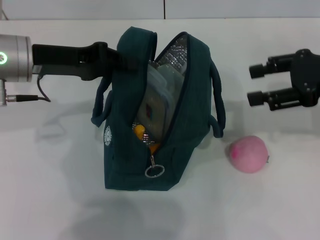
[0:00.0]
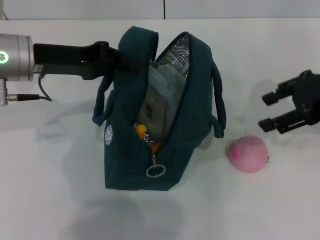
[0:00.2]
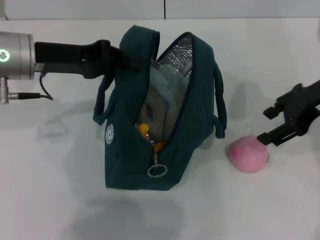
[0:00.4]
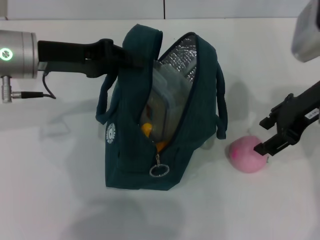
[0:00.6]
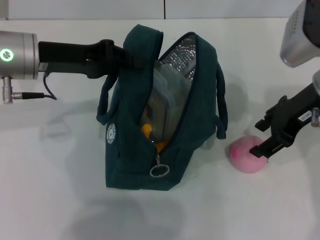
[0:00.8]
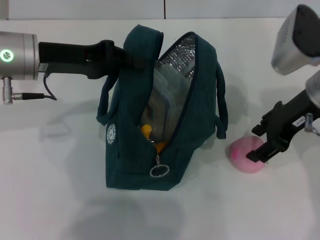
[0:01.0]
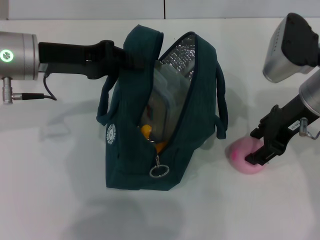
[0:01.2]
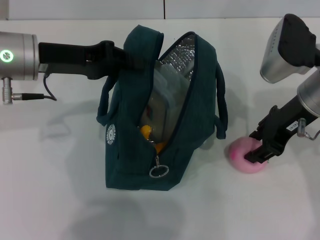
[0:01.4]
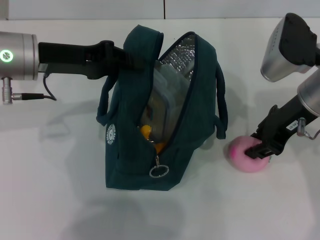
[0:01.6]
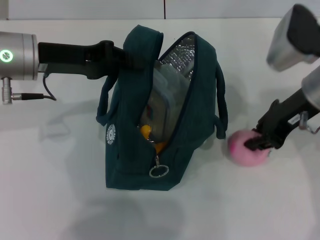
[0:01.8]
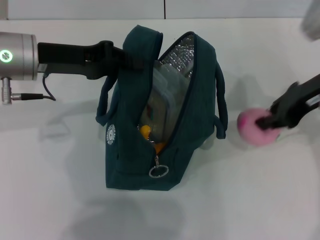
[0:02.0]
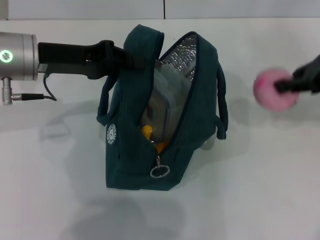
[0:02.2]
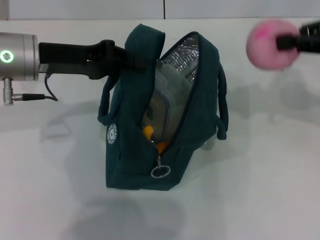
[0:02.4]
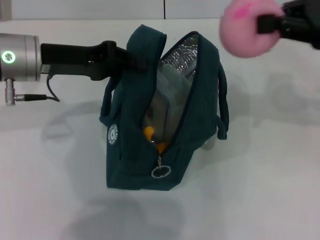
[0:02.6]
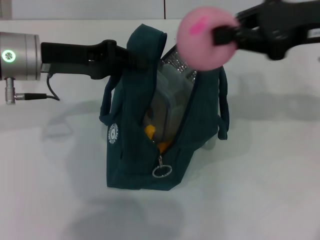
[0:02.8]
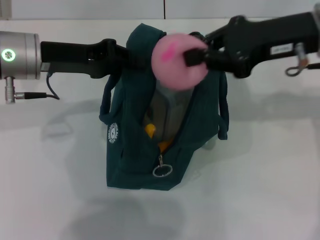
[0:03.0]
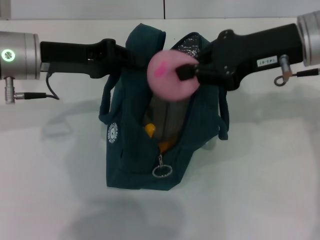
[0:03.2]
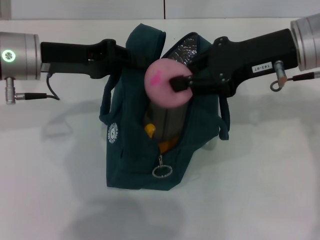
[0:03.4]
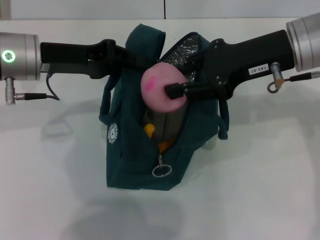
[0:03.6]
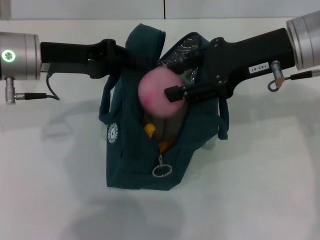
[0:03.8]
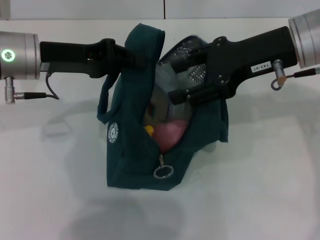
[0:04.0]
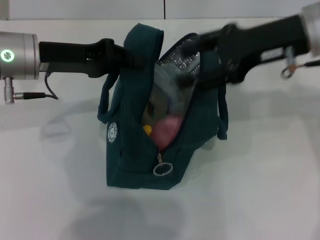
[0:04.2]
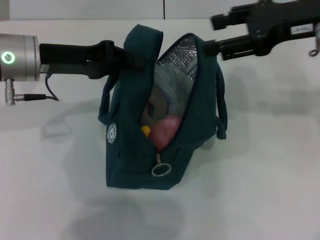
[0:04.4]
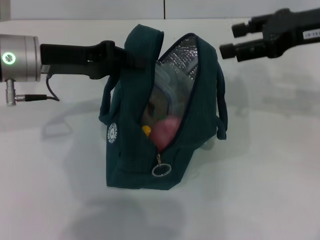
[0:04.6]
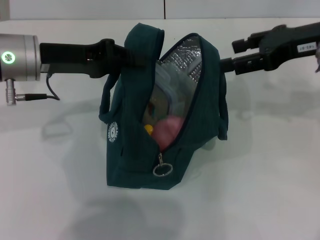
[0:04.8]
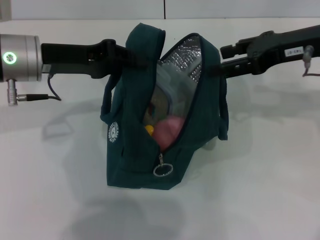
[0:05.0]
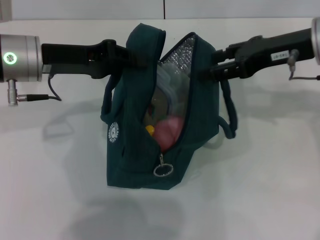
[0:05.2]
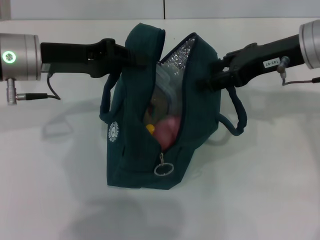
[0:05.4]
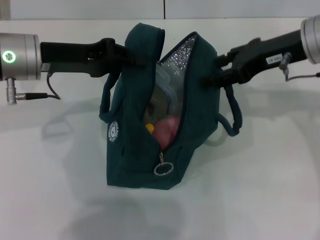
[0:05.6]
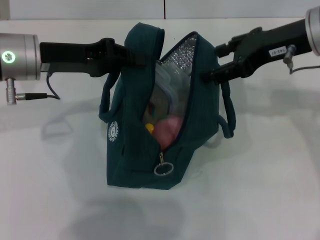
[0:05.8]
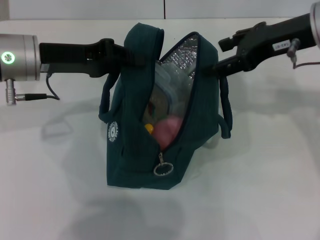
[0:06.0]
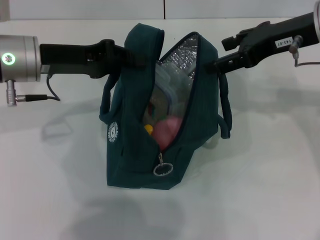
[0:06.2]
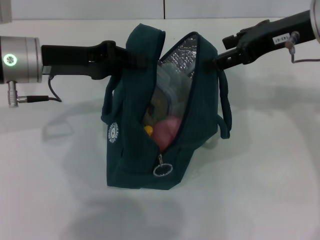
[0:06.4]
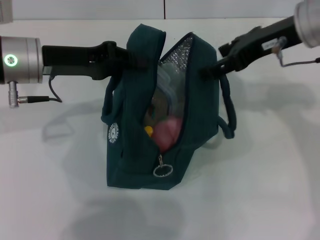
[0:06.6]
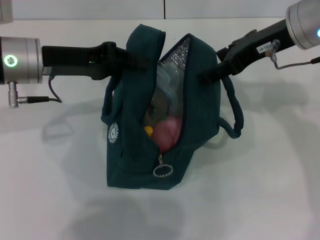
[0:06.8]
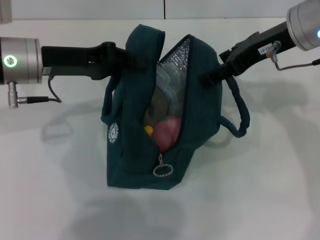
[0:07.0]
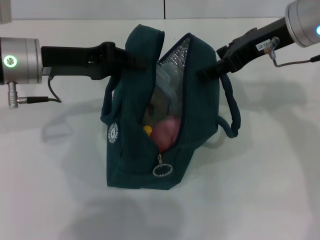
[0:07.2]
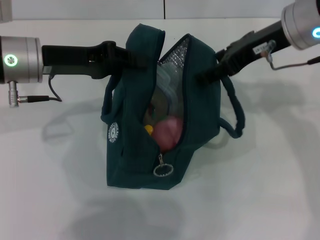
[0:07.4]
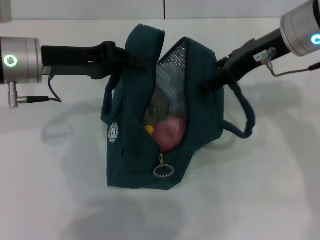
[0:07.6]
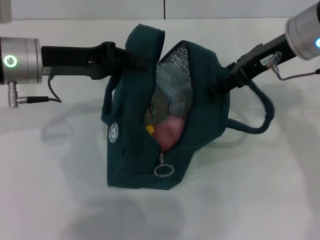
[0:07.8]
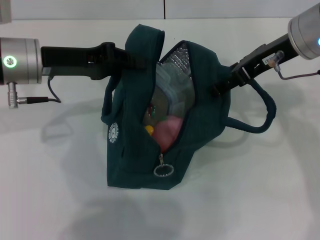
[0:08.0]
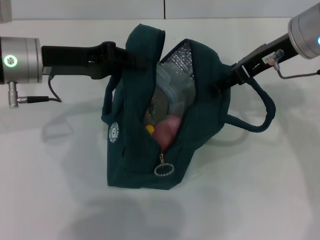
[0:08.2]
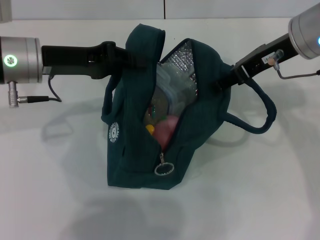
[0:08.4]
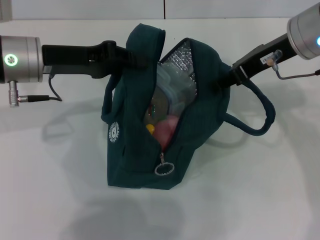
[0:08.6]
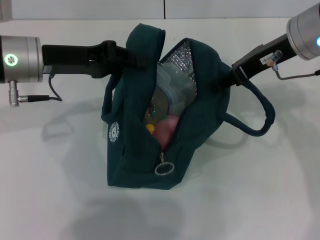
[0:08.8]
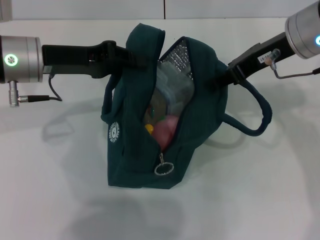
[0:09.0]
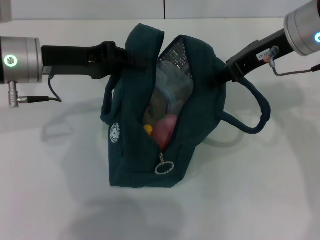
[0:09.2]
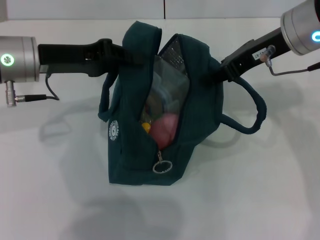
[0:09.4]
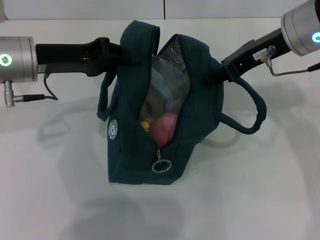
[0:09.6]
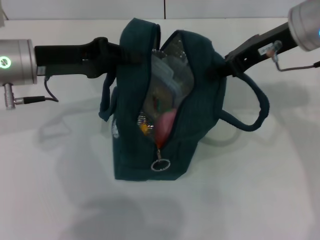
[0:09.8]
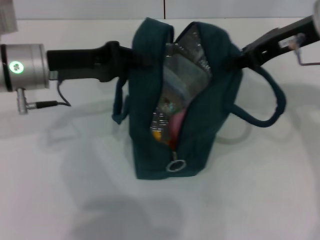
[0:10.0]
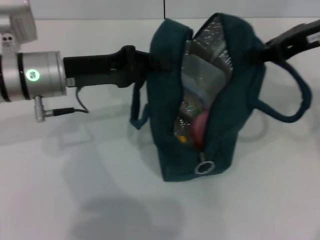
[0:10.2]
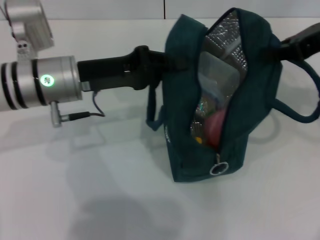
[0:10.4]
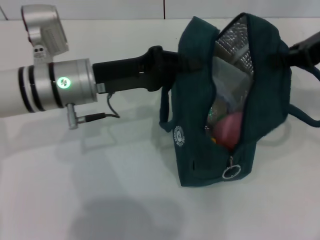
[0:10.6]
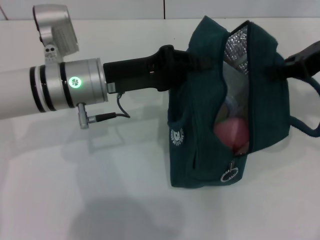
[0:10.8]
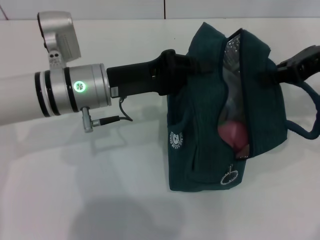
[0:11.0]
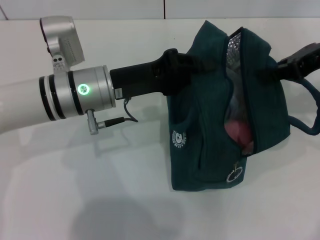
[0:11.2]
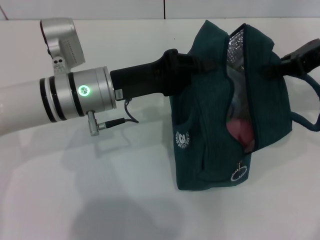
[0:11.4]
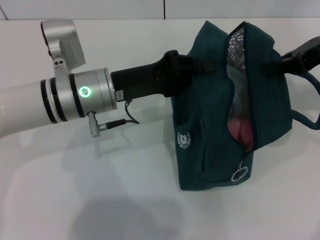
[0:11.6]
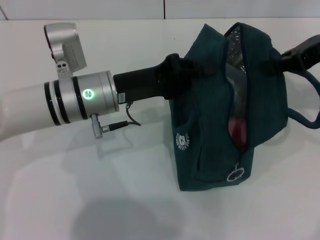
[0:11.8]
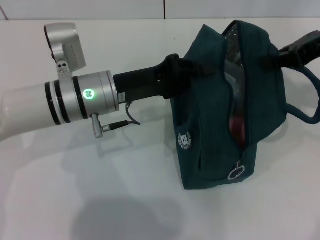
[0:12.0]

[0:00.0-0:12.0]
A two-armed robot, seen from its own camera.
Step, 0:00.0 to 0:01.4: Grab the peach with your right hand.
0:00.0 to 0:01.6: The right gripper is displaced to the left by about 10 cm.
0:01.6 to 0:03.0: The right gripper shifts approximately 5 cm upward, travels to the right and back again, some 10 cm each way, and closes its fingers.
0:03.0 to 0:04.4: The right gripper opens.
0:04.4 to 0:06.0: There are only small adjustments of the grippers.
0:06.0 to 0:07.6: The grippers move only a little.
0:07.6 to 0:09.0: The right gripper closes.
0:09.0 to 0:10.4: The right gripper travels to the right by about 10 cm; the left gripper ends up some 5 cm from where it was.
0:10.4 to 0:12.0: The left gripper moves roughly 5 cm.

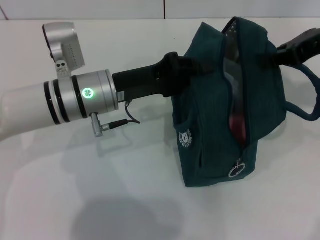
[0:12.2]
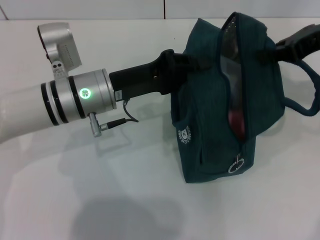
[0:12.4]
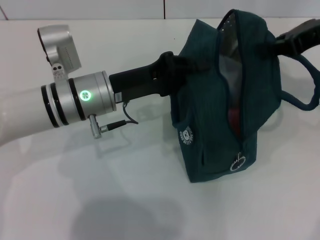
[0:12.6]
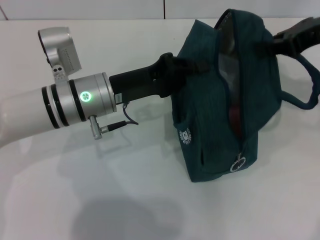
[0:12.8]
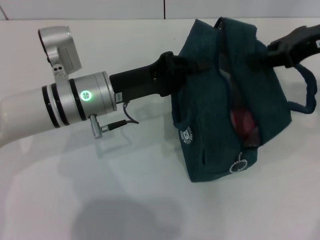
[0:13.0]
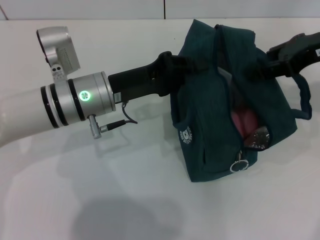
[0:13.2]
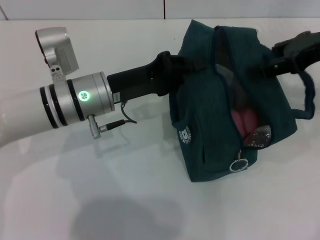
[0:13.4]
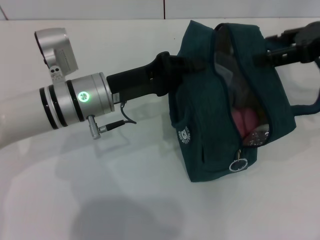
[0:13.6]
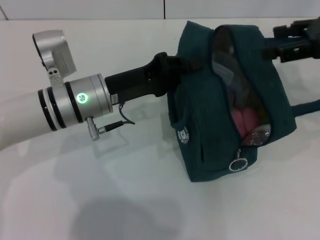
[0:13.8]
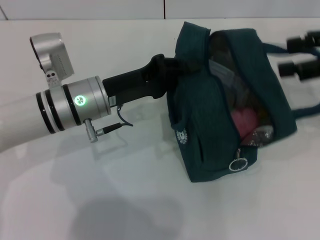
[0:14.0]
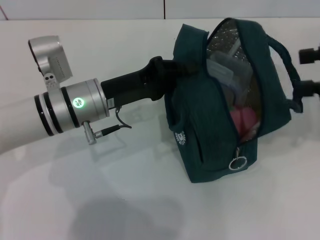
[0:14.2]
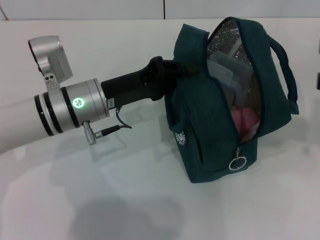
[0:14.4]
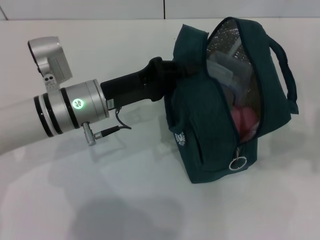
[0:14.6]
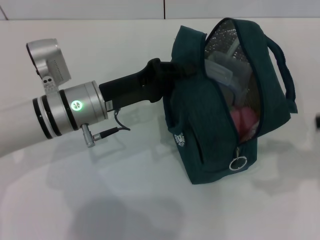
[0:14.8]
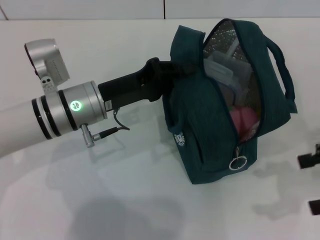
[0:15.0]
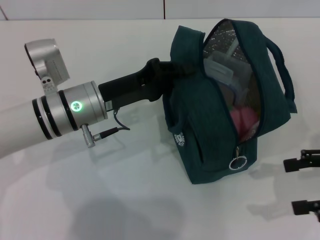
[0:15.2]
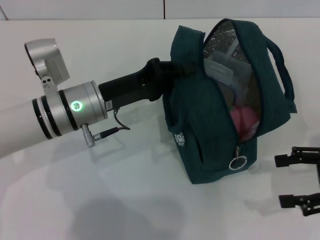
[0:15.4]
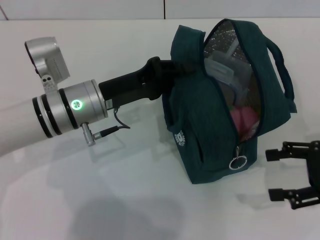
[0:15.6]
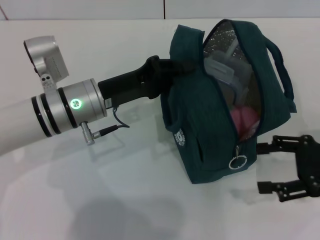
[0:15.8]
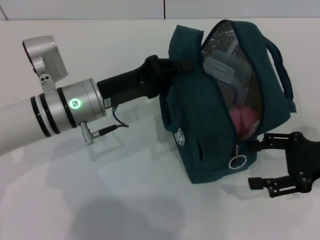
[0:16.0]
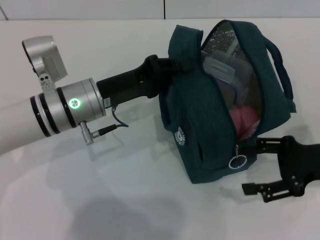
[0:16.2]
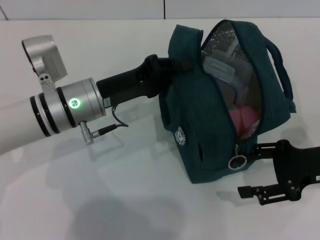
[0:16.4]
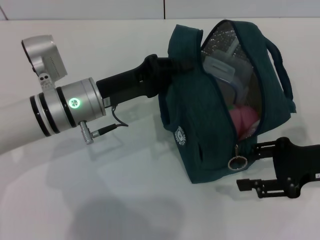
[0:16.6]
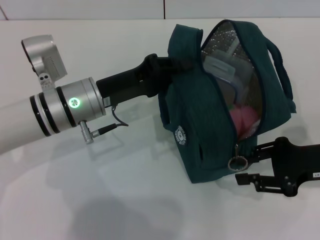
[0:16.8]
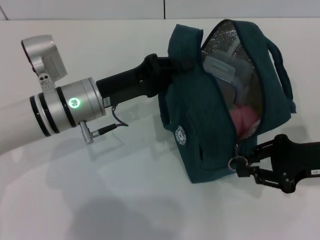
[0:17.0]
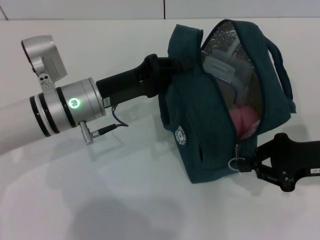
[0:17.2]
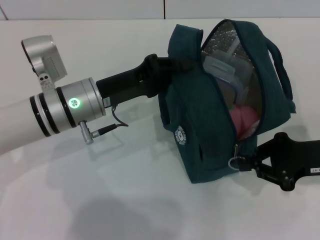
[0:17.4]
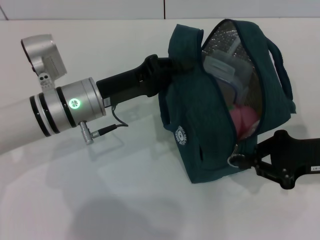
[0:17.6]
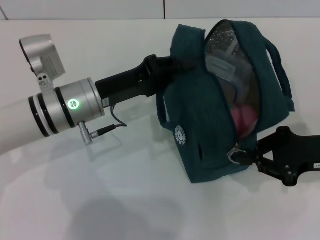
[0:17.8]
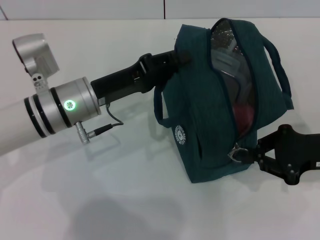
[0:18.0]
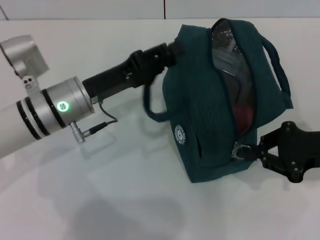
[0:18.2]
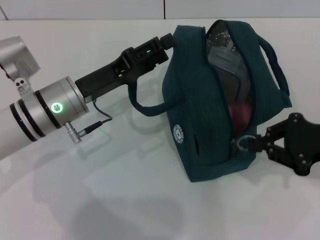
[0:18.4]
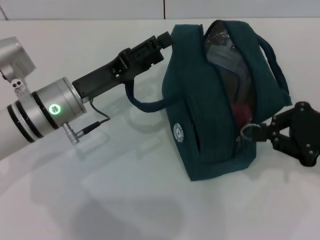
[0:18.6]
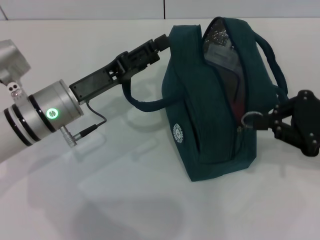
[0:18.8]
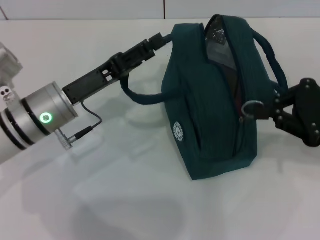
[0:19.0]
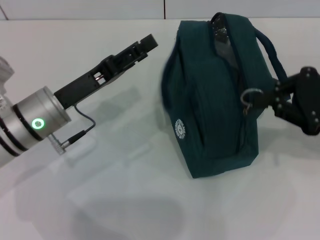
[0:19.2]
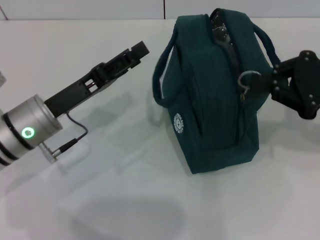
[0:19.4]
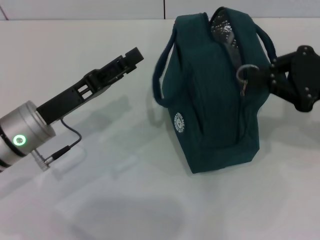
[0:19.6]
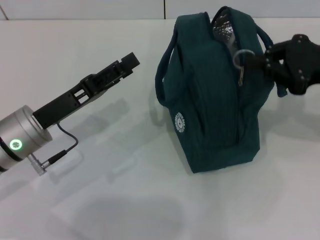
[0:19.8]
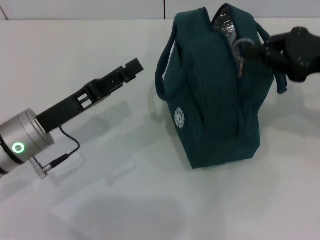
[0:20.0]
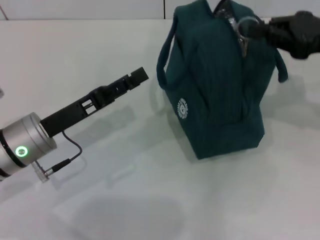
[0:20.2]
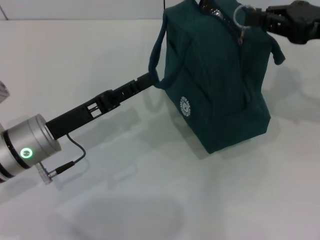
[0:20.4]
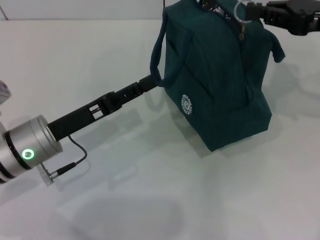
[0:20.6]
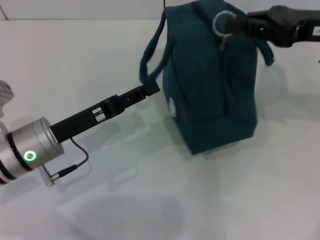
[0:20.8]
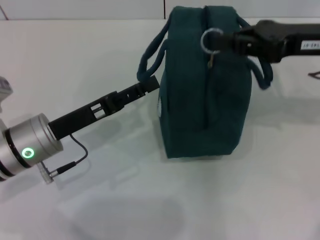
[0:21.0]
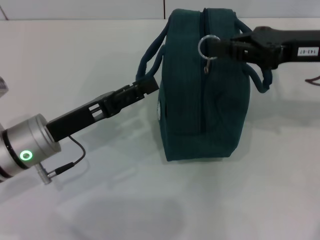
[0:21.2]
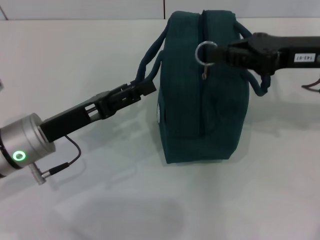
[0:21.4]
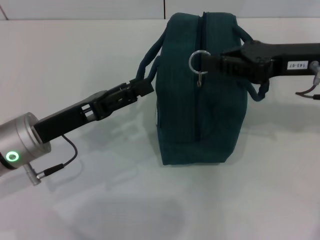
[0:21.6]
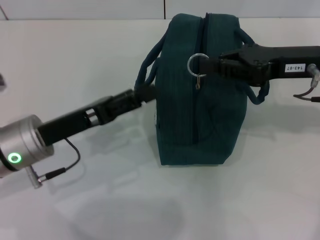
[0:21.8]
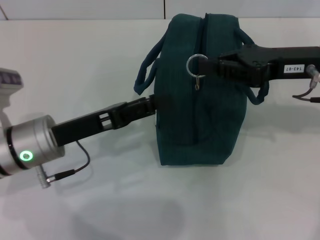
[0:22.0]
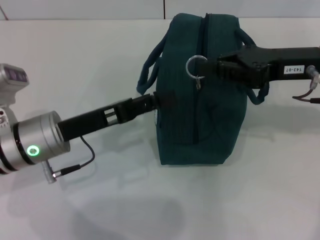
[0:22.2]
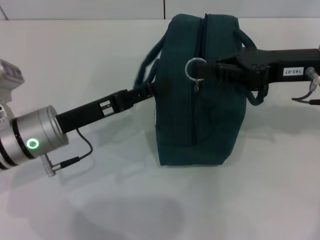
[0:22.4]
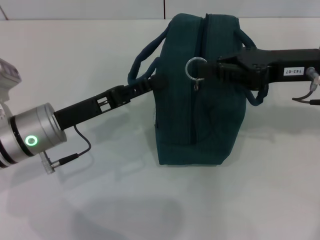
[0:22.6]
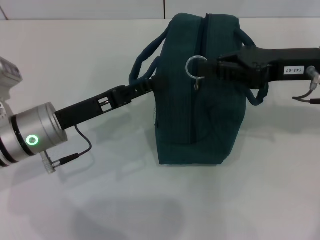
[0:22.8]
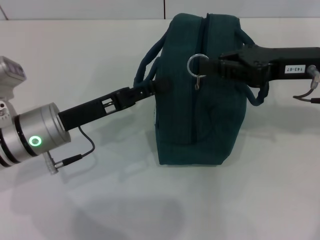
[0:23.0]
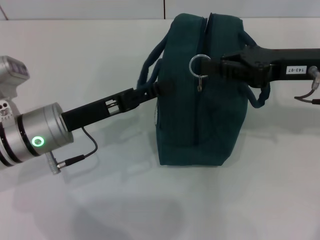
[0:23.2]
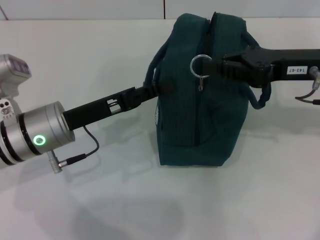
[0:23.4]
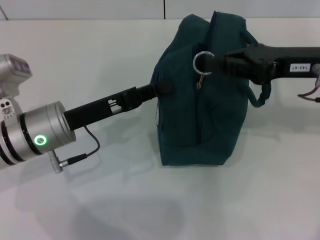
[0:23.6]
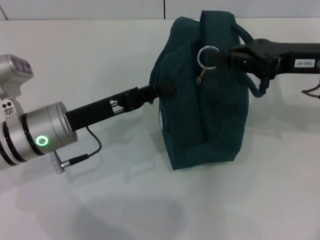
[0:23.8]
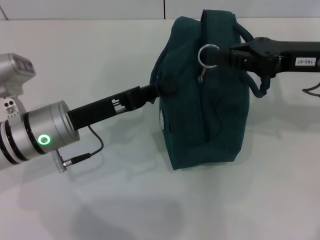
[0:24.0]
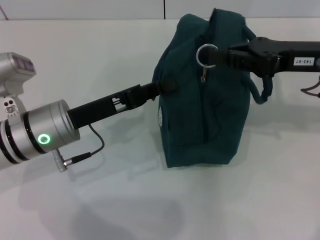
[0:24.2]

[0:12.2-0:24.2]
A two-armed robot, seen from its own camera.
0:12.2 to 0:13.8: The right gripper opens its fingers.
0:13.8 to 0:15.2: The right gripper moves backward and downward, approximately 15 cm.
0:15.2 to 0:16.6: The right gripper heads to the left, covering roughly 5 cm.
0:16.6 to 0:18.2: The right gripper closes up.
0:18.2 to 0:19.8: The right gripper heads upward, covering about 10 cm, while the left gripper goes some 5 cm to the left, and opens its fingers.
0:19.8 to 0:21.2: The right gripper shifts by roughly 5 cm.
0:21.2 to 0:22.6: The grippers stay close to where they were, moving slightly.
0:22.6 to 0:24.2: The left gripper closes its fingers.
